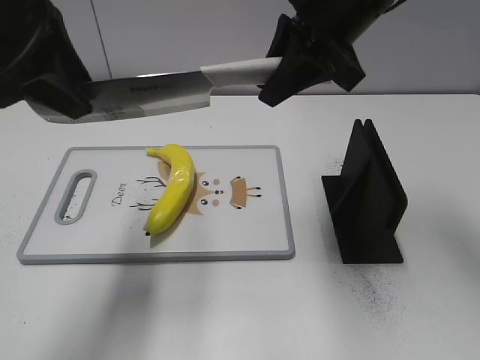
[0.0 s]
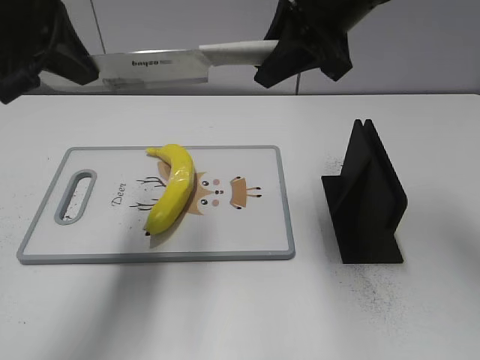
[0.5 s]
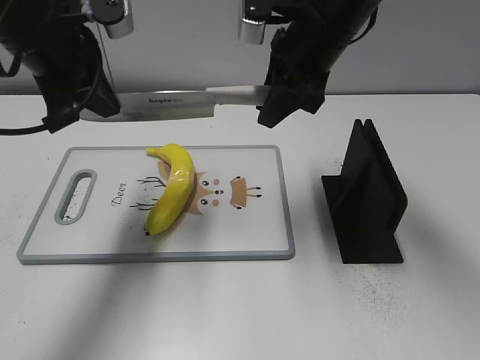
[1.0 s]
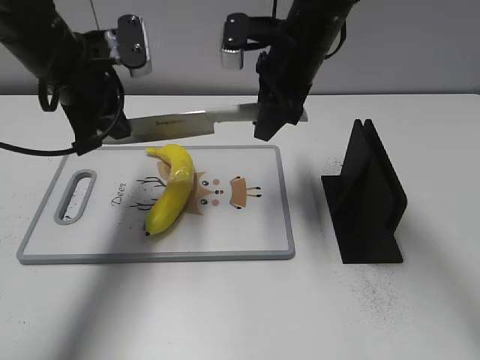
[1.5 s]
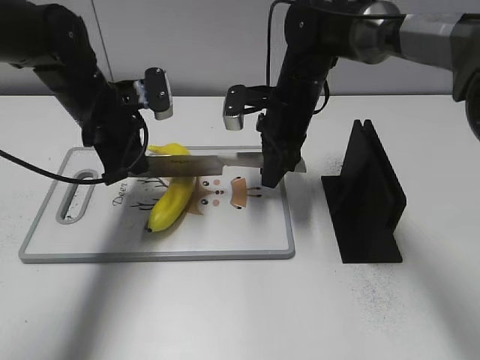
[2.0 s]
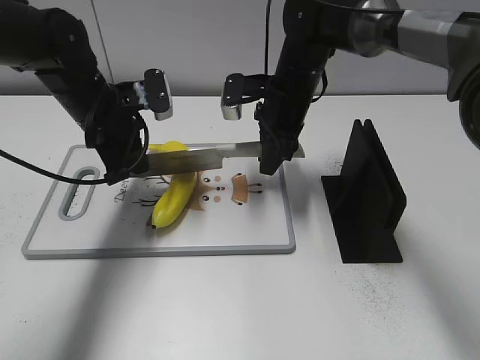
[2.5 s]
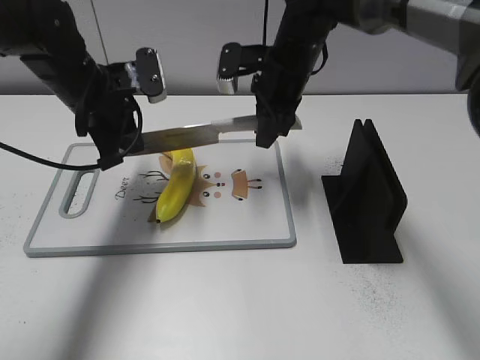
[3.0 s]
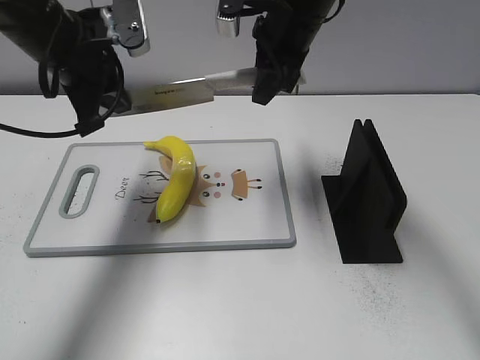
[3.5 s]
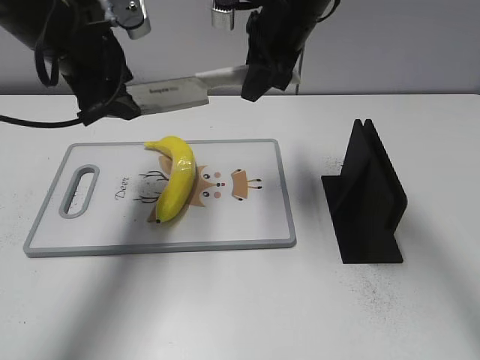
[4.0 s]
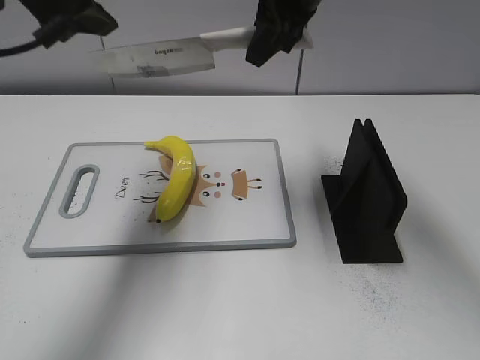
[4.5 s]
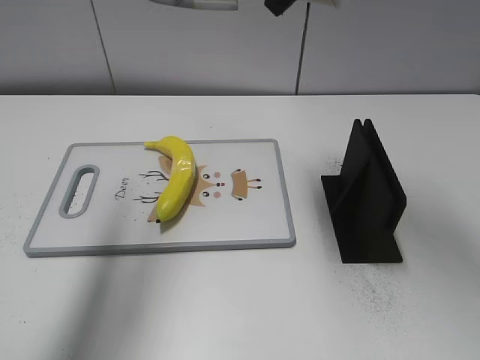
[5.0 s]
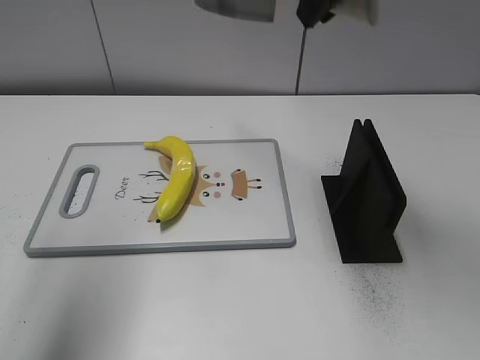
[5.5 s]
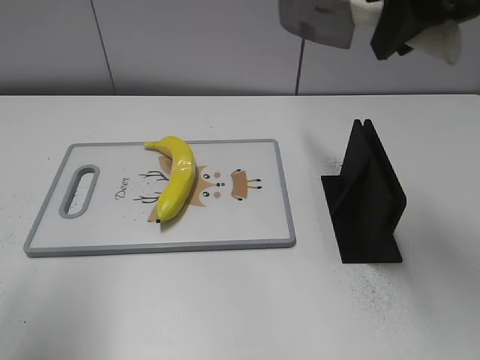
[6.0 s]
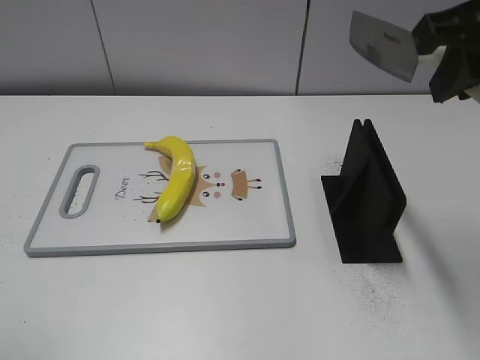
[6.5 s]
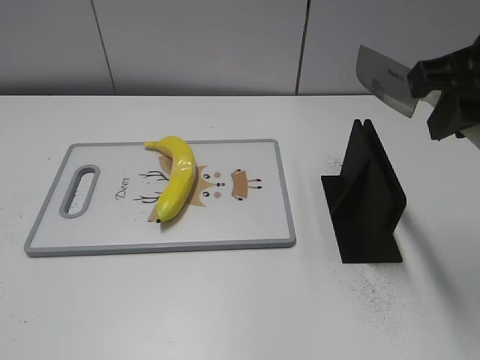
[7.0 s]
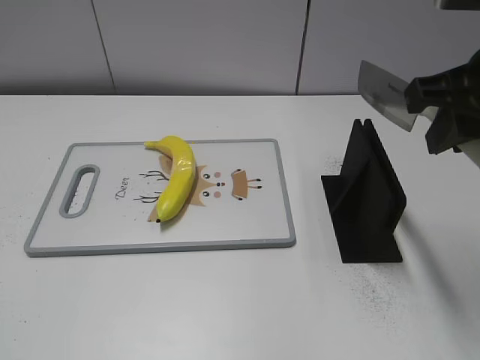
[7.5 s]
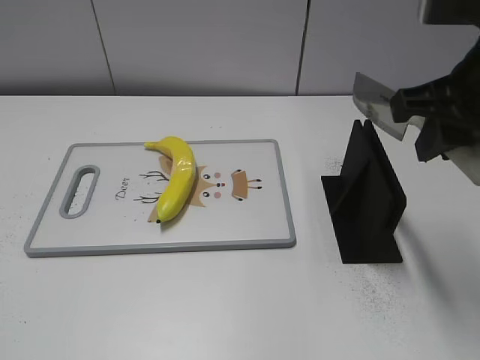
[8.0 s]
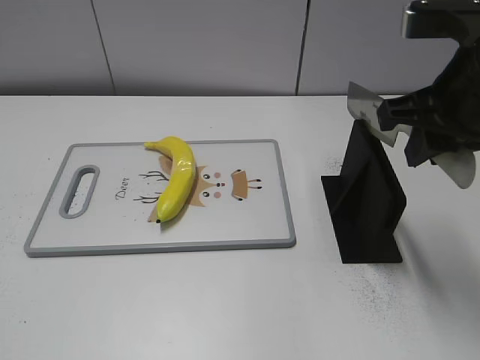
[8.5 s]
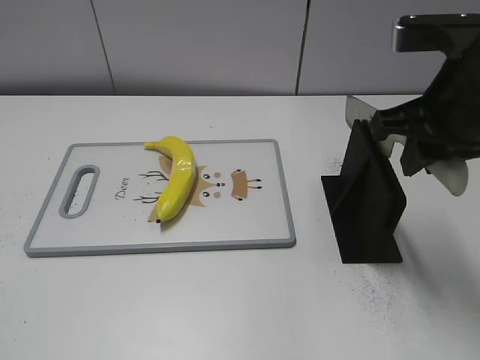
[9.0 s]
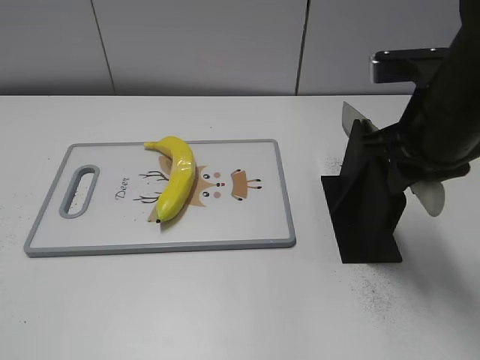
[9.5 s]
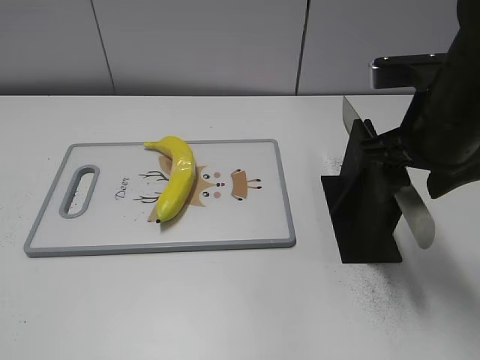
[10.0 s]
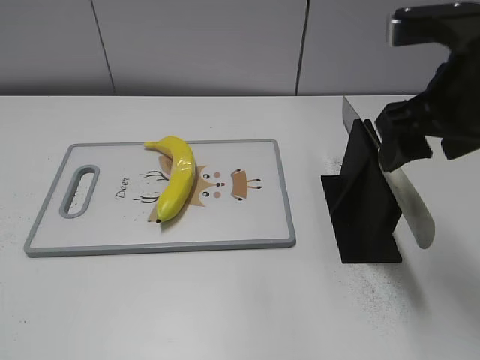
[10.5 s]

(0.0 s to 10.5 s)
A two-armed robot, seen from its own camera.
Task of the whole recording: cut plastic banana.
Step, 0.0 s - 2.0 s: Lift the knife with your right hand.
Step, 2.5 s - 4.5 s: Cut the banana with your right hand.
Step, 5.0 s - 6.5 s: Secure the blade with your left hand.
0.0 s - 2.0 s: The two grippers go roughly 20 cm downward and forward. The left gripper closes.
2.0 s - 4.0 s: The two grippers go about 10 cm upward. The left gripper opens up.
4.0 s - 6.5 s: The left gripper goes about 30 cm backward and to the left. Meanwhile the right gripper is displaced backward, to the right and upward by some 25 cm.
6.5 s - 8.5 s: The right gripper goes approximately 5 cm downward.
8.5 s - 10.5 s: The right gripper opens up.

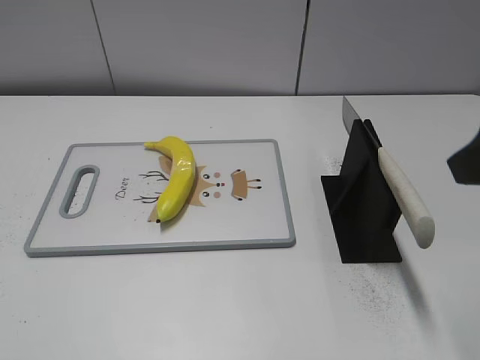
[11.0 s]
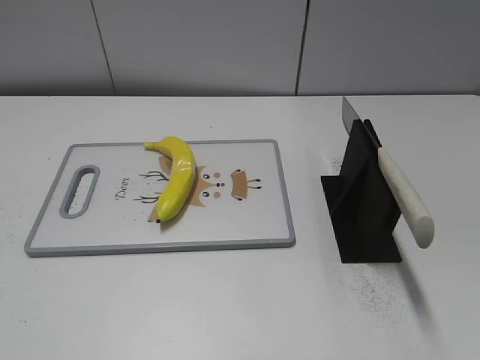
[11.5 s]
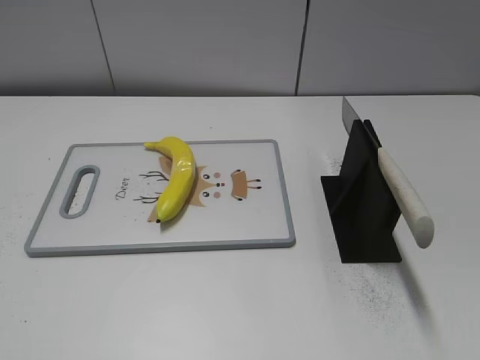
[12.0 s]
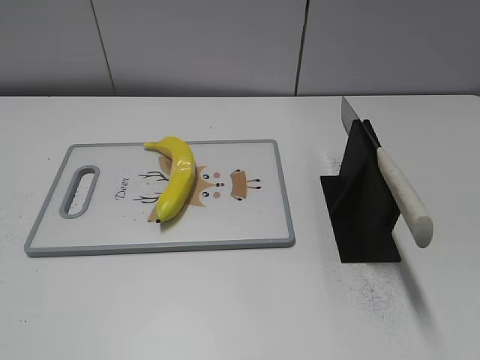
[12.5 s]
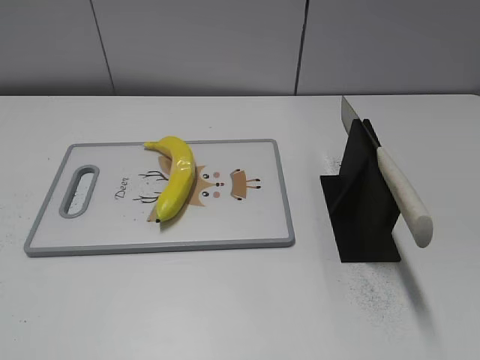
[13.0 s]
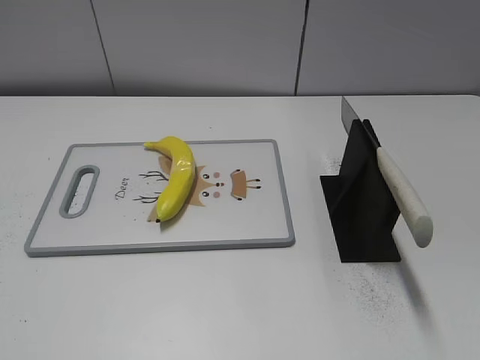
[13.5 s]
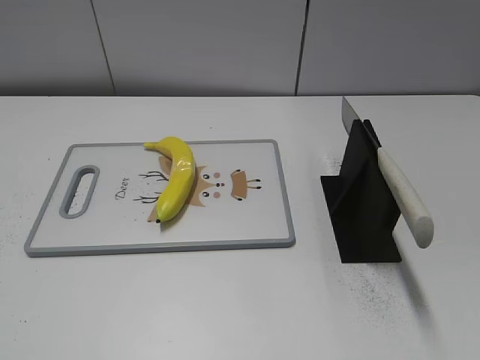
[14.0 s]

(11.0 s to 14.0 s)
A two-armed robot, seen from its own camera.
Task of the whole recording: cut plastic banana.
11.0 s - 12.5 s: The right gripper goes some 20 cm backward and to the right.

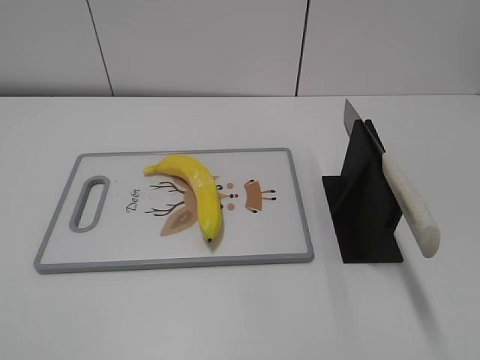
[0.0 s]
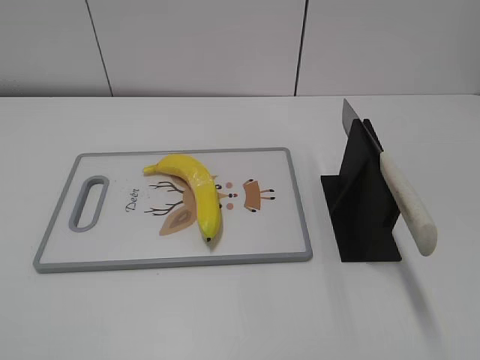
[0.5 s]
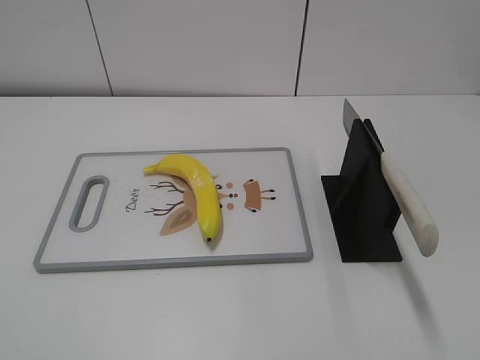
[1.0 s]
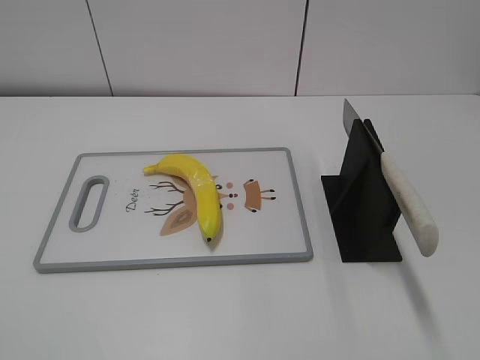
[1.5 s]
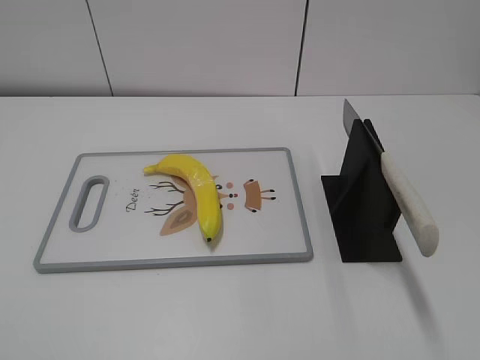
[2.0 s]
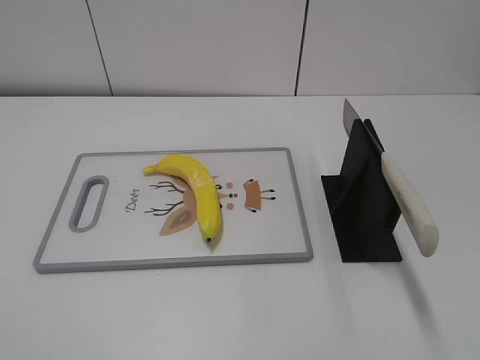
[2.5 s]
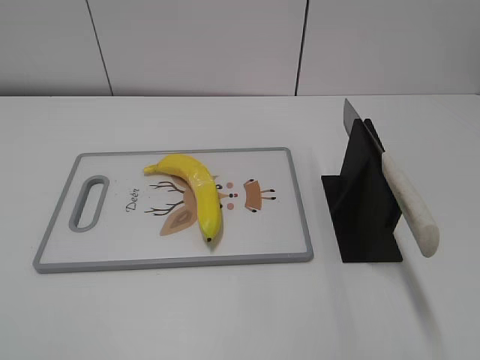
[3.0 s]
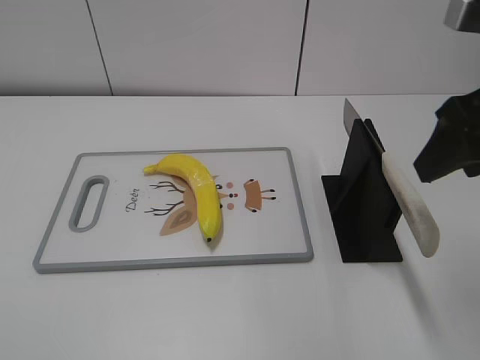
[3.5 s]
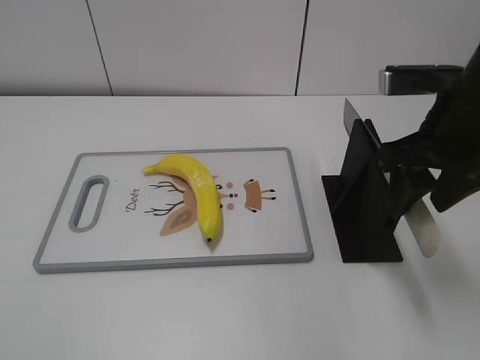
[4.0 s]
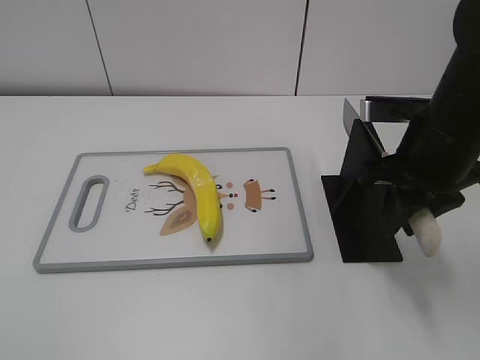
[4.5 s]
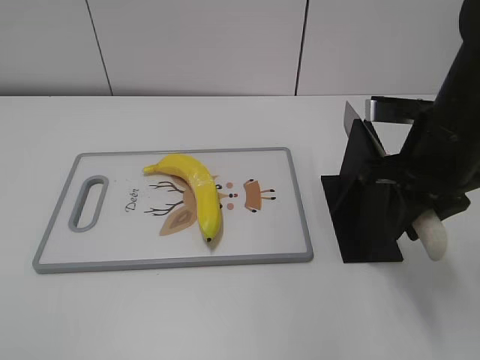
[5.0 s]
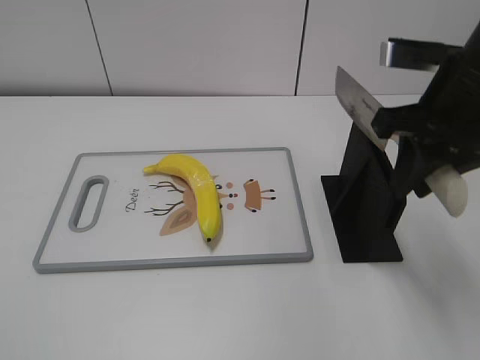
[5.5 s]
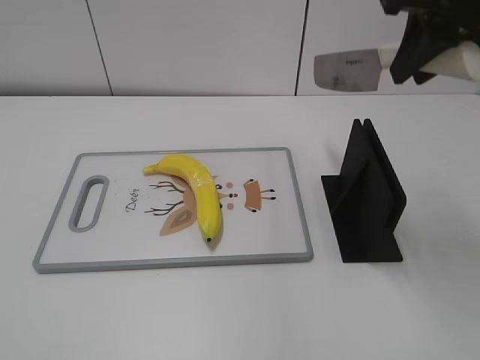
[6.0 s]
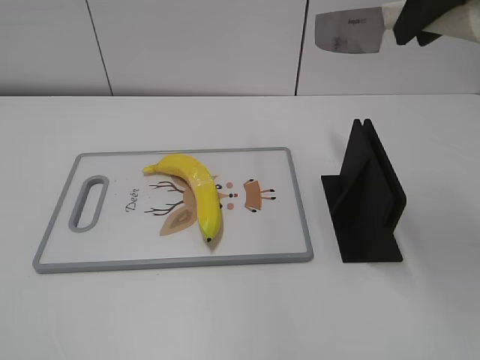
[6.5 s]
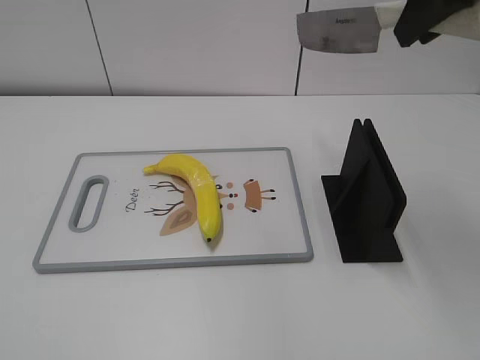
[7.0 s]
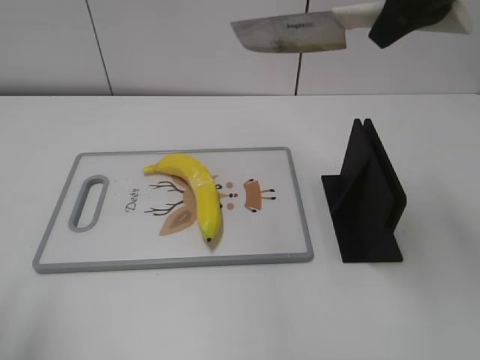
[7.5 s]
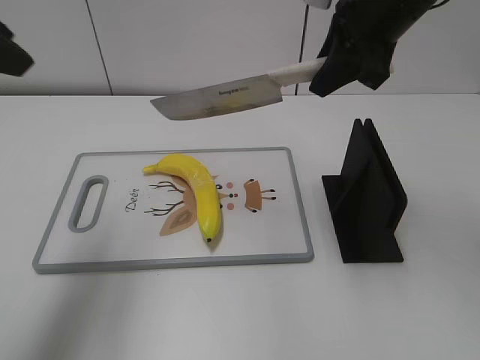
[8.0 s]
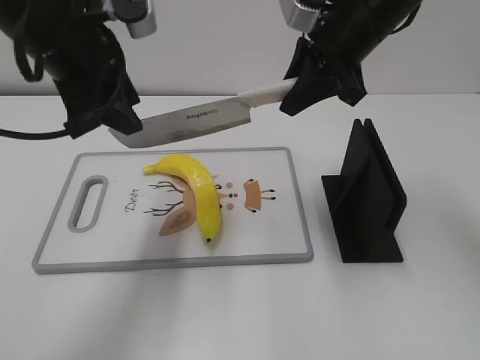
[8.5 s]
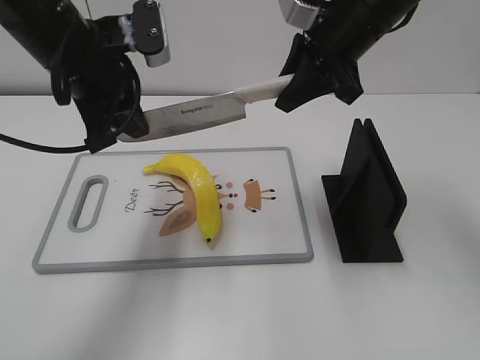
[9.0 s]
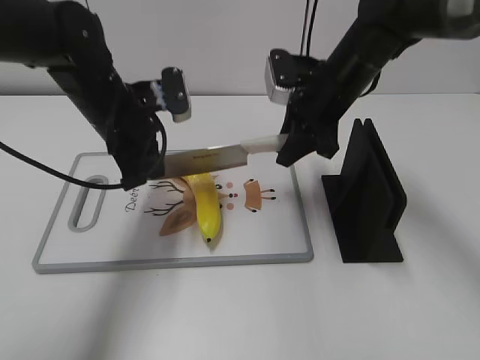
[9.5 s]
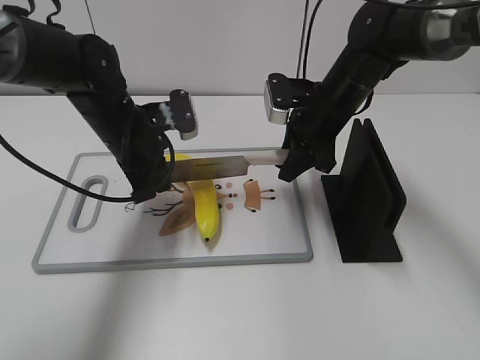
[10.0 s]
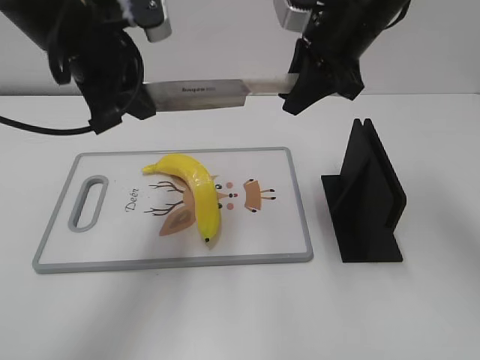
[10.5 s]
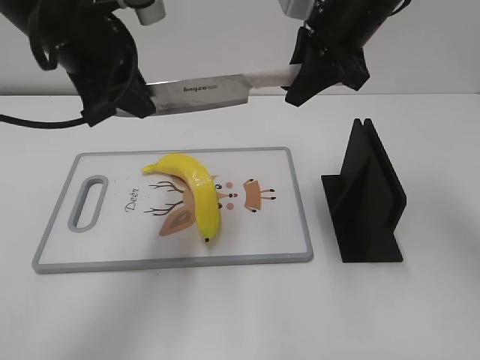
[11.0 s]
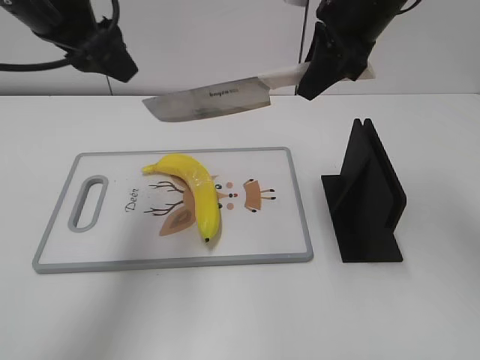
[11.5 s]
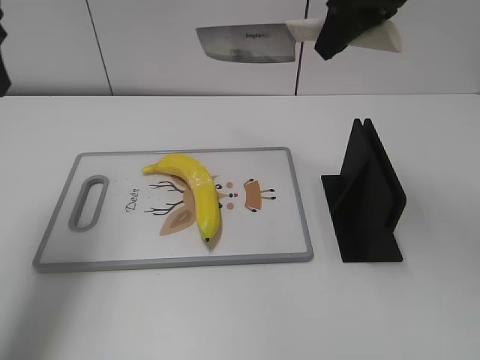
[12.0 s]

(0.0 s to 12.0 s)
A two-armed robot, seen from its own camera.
Task of the whole recording: cut plastic banana.
Step, 0.0 s - 5.5 s: Grab the knife handle with your right hand.
Step, 6.0 s - 11.0 s: Lift the knife with your right hand.
2.0 s - 4.0 s: The right gripper shifts approximately 30 cm forward.
4.0 s - 6.0 s: The right gripper travels upward by approximately 10 cm, and closes.
6.0 s - 8.0 s: The right gripper heads forward, covering approximately 5 cm, while the left gripper shifts about 25 cm forward.
8.0 s - 10.0 s: The left gripper shifts some 30 cm downward, to the right and forward, and closes up; the right gripper is displaced downward by roughly 15 cm.
10.0 s - 12.0 s: The right gripper moves upward, some 20 cm; the left gripper goes roughly 25 cm upward and to the left, and opens.
